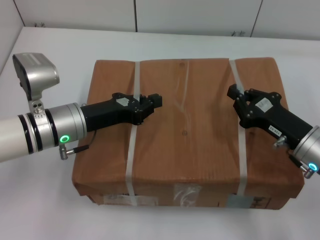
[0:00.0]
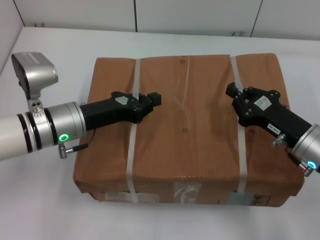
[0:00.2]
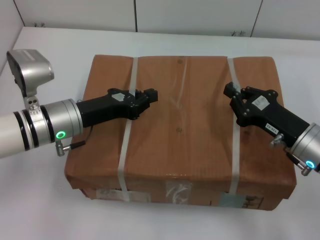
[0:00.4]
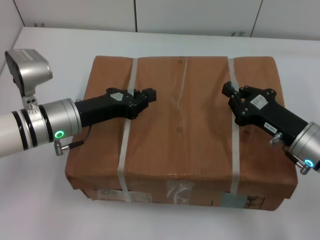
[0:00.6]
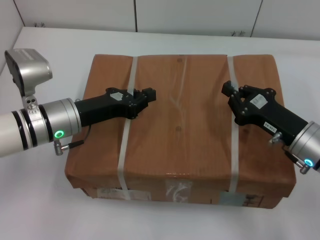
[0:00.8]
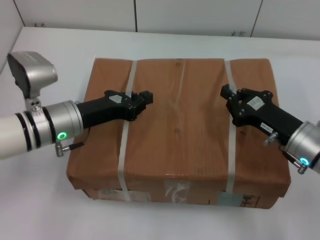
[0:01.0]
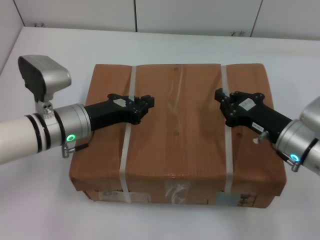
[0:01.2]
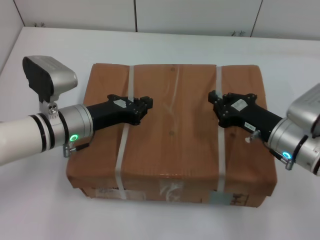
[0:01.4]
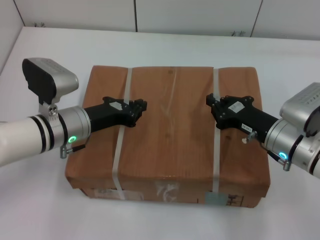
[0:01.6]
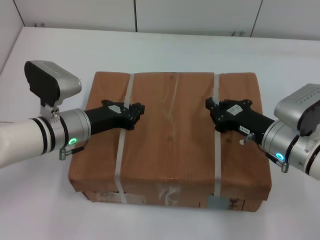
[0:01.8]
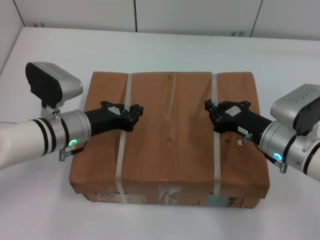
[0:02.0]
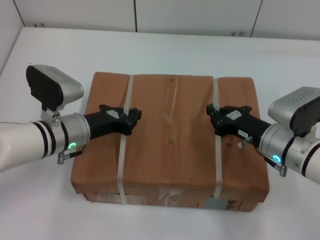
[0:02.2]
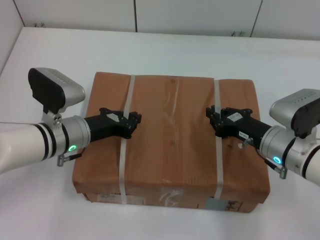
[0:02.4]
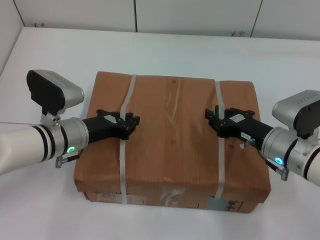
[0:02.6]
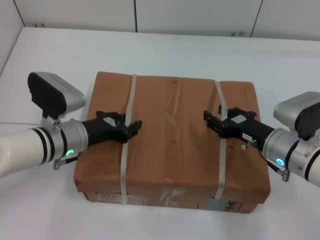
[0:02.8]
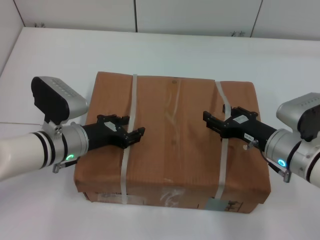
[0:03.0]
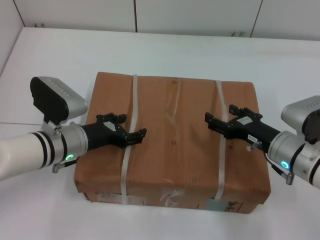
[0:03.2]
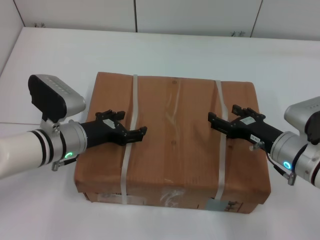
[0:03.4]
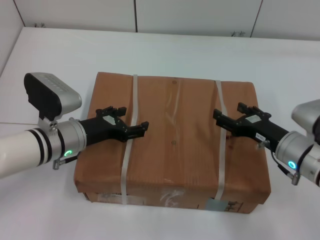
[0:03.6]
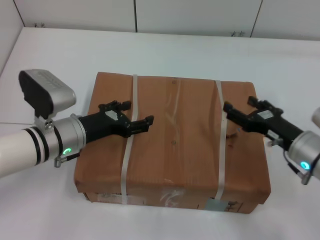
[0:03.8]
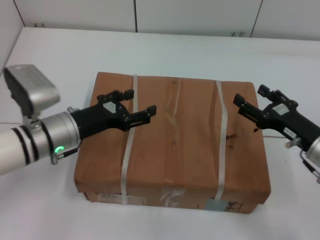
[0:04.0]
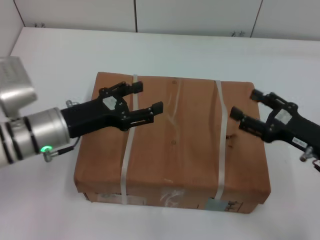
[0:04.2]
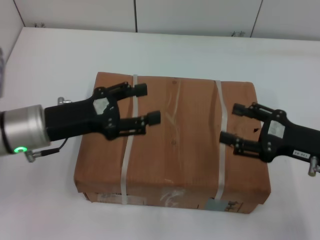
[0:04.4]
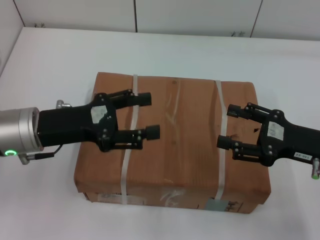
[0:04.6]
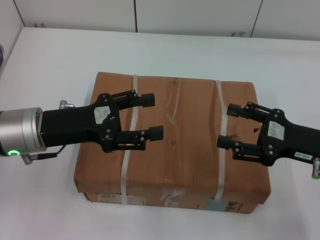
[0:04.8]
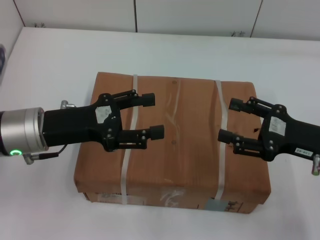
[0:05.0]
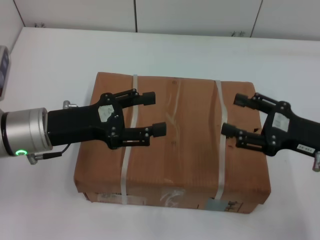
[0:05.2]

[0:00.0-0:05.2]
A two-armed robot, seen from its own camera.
Task of the whole recording: place the box on the table with both arms.
Step, 0:00.0 to 0:02.4: Place the box on the table with left gripper.
Step, 0:00.0 to 0:02.4: Place the box on the table with right gripper.
Step, 0:02.6 to 0:03.2: Loosen the box on the table with left gripper.
Step, 0:02.6 to 0:03.2: Loosen the box on the table with right gripper.
0:01.8 to 0:03.4: The left gripper opens up. Meanwhile the right gripper opens.
0:03.4 to 0:05.2: The left gripper heads upward, covering about 10 cm. Meanwhile the right gripper shifts about 10 cm upward and to the right.
